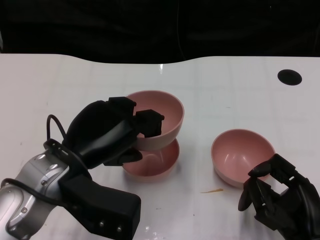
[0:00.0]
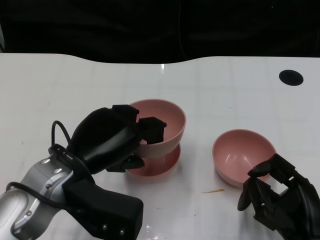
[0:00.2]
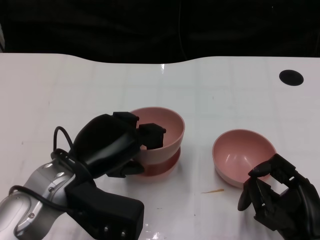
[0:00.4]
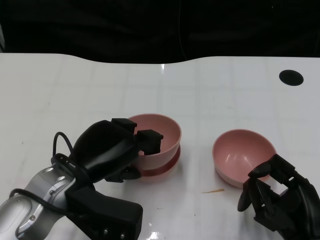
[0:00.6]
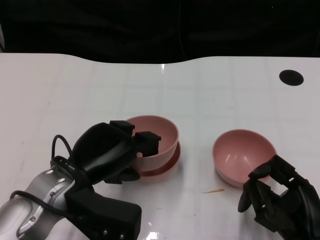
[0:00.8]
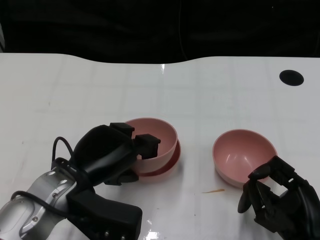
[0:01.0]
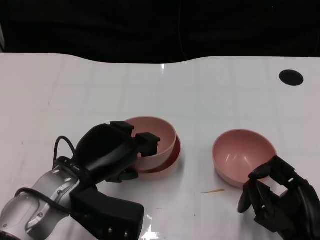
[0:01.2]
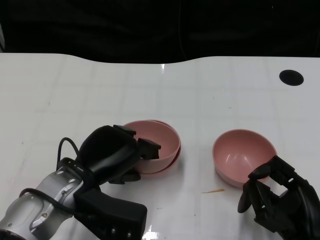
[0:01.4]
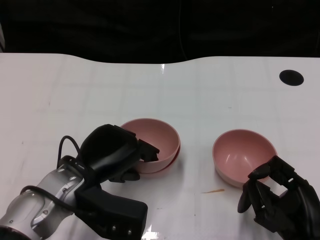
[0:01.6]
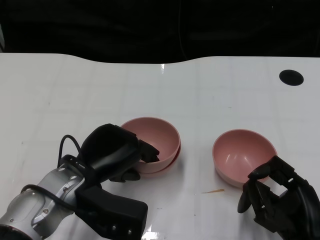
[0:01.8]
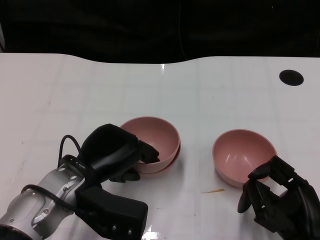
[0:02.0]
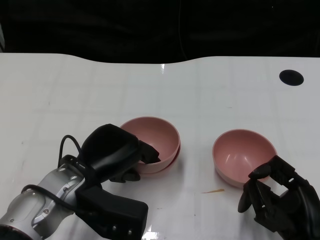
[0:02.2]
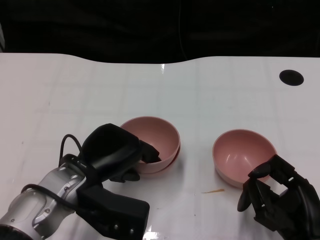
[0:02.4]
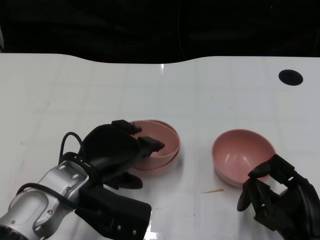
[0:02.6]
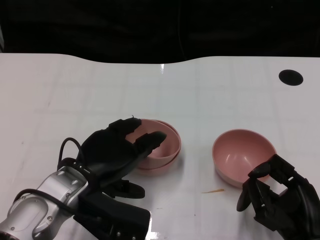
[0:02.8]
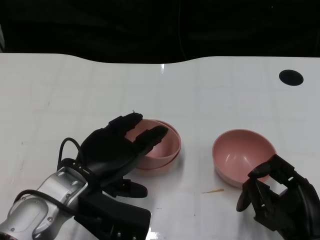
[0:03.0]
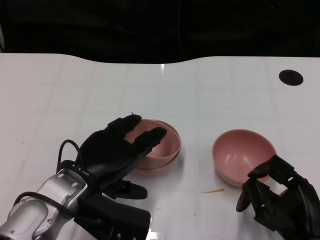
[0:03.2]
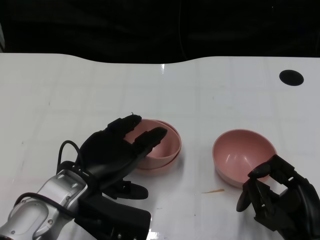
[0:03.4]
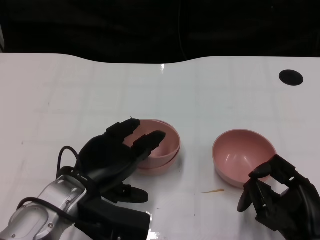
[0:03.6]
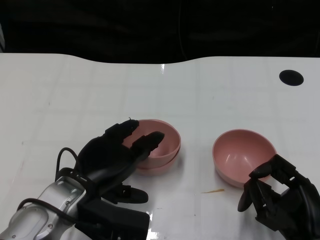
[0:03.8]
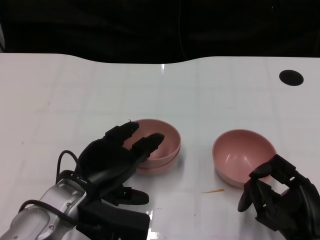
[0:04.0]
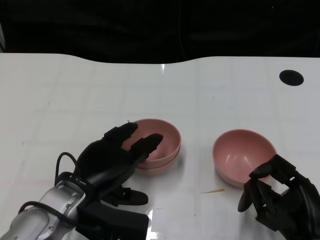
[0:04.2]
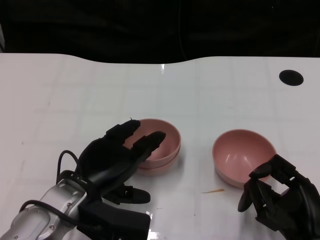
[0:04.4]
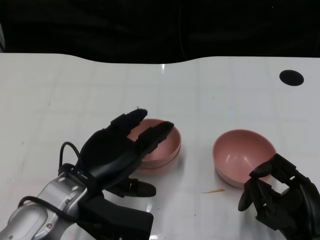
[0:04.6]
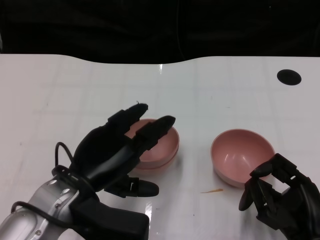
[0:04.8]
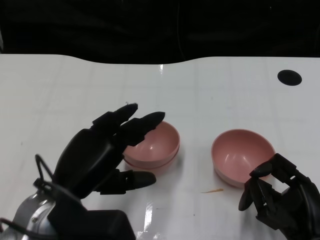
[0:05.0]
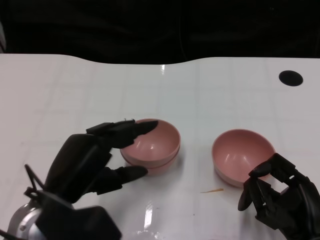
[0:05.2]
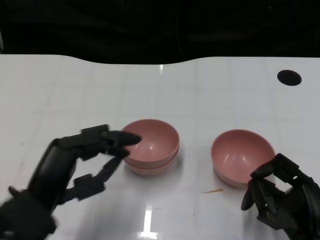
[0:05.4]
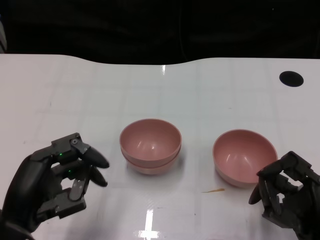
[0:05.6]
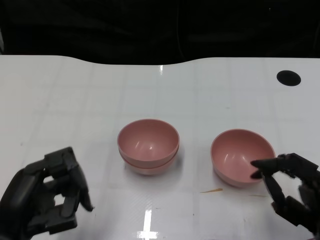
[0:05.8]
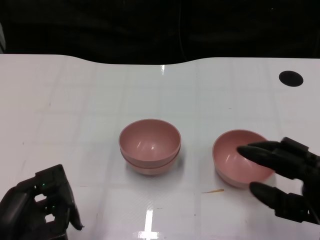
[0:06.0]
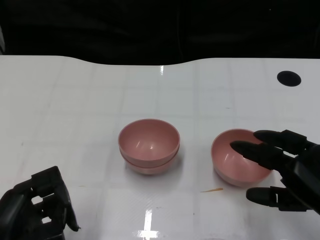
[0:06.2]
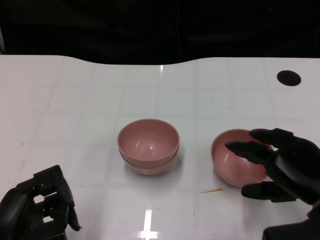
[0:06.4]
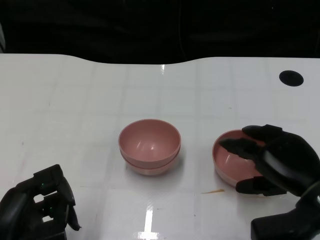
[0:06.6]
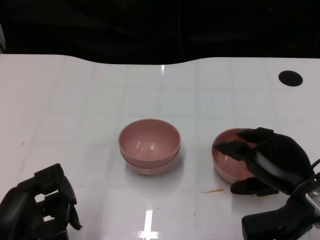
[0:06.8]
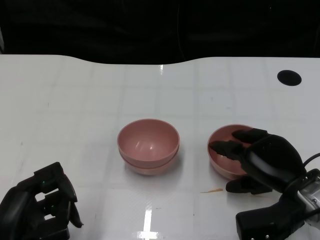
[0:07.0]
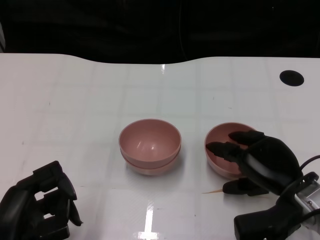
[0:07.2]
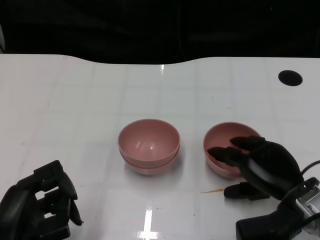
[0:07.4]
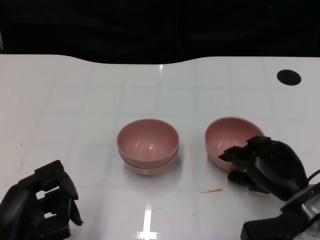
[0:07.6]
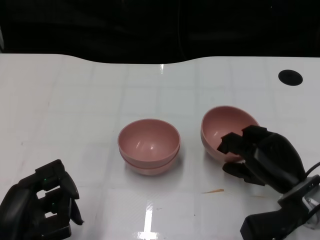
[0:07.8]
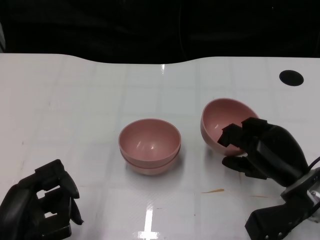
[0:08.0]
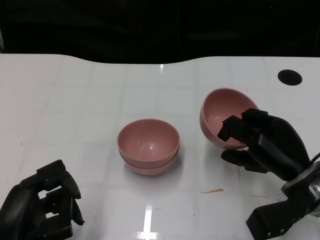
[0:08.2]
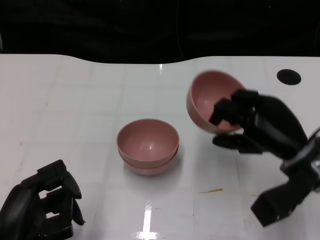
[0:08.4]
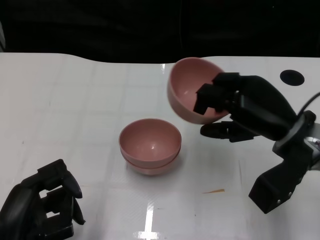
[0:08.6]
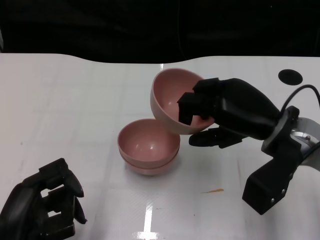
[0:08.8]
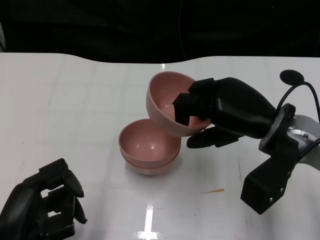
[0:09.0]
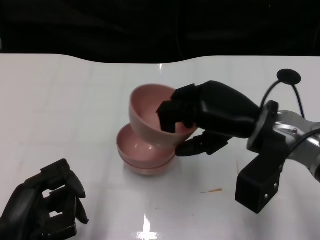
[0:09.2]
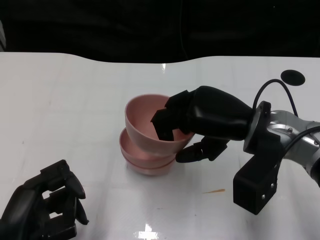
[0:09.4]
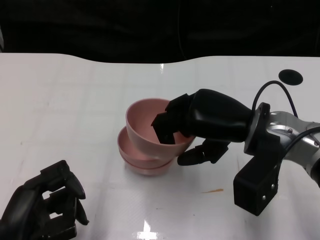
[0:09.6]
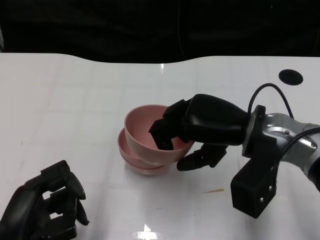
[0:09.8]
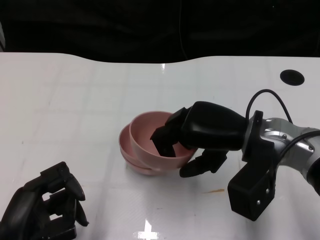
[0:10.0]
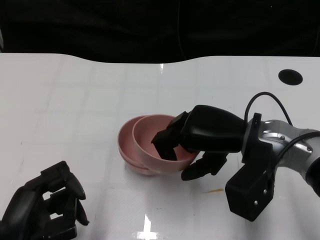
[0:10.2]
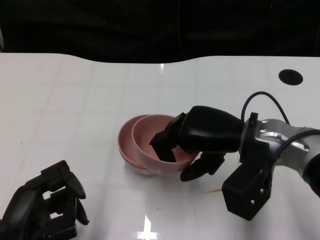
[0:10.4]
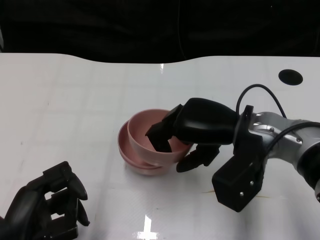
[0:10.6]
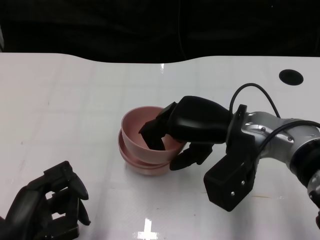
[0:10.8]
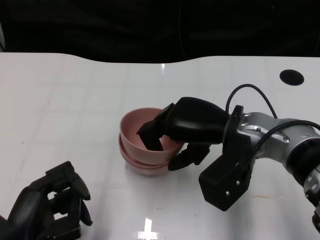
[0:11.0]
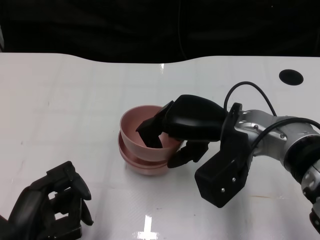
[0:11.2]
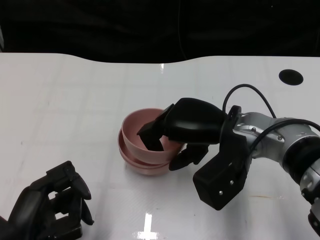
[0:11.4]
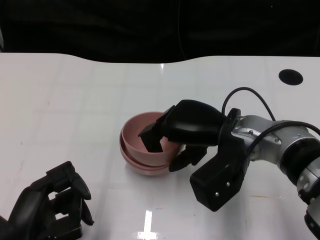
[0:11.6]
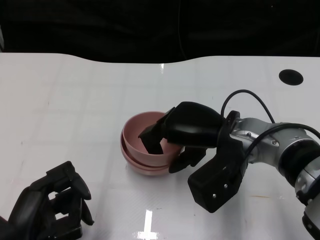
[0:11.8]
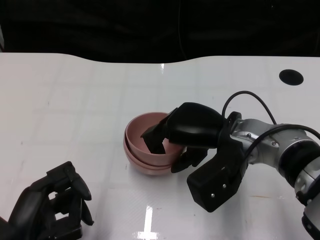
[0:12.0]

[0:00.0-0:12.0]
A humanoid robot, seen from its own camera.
Task of the whole recording: Pick up the bowl on one side of the table and place it on top of the middle bowl, then pick up the bowl on the other side of the table and place it on top of the middle bowls.
Step, 0:00.0 to 0:03.6: Place the bowl on the left onto the bowl in the middle with left gripper.
Step, 0:03.8 to 0:07.8: Grasp the bowl on the right with the right gripper.
0:00.0 to 0:01.6: The left hand is displaced downward by about 5 cm.
0:01.6 to 0:04.4: The hands make only small movements.
0:04.4 to 0:06.0: The right hand changes place by some 5 cm. Meanwhile the left hand is displaced backward and to the left by about 15 cm.
0:06.0 to 0:07.6: The right hand goes about 10 cm forward.
0:07.6 to 0:09.0: The right hand travels upward and forward by some 15 cm.

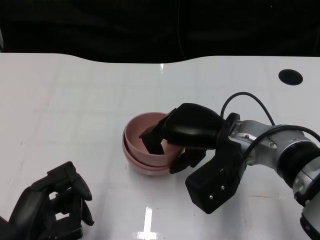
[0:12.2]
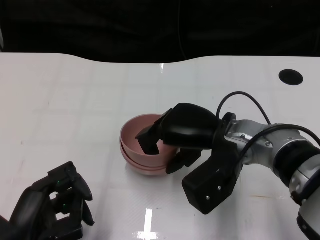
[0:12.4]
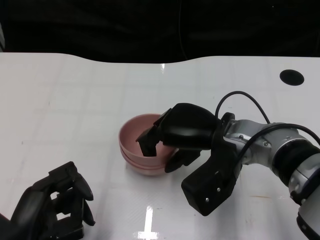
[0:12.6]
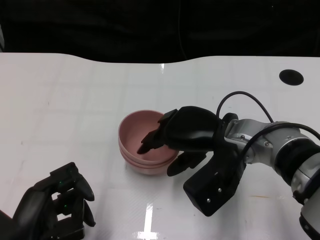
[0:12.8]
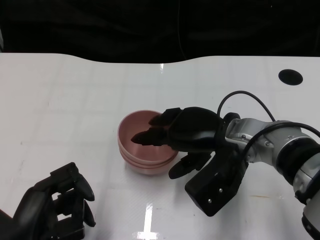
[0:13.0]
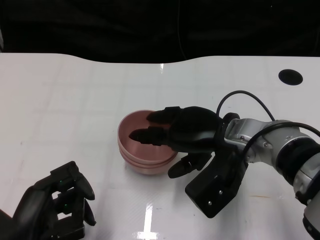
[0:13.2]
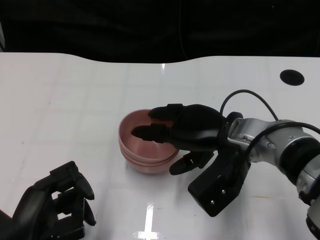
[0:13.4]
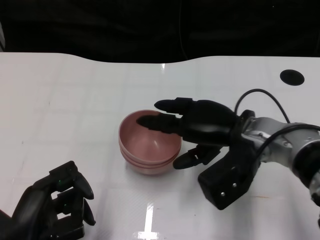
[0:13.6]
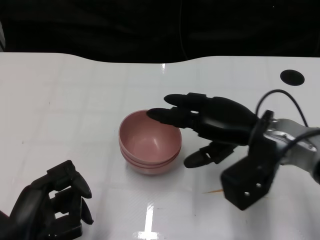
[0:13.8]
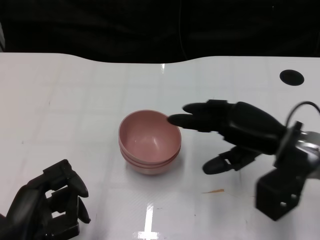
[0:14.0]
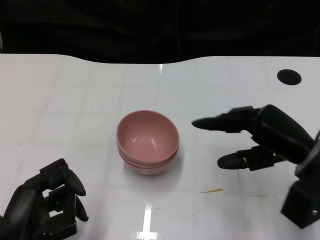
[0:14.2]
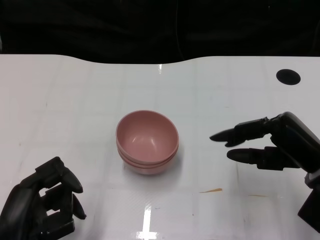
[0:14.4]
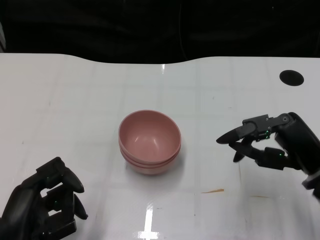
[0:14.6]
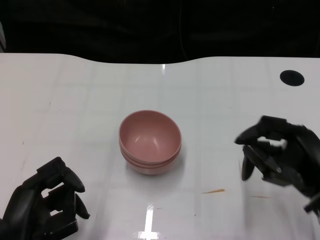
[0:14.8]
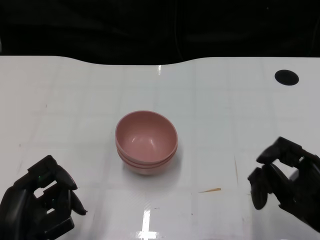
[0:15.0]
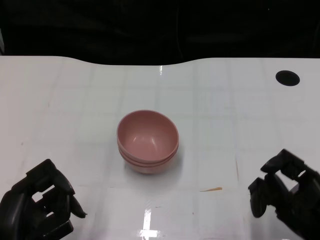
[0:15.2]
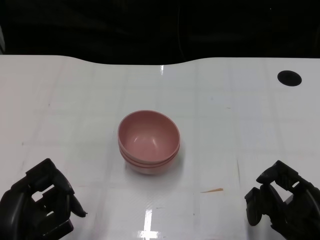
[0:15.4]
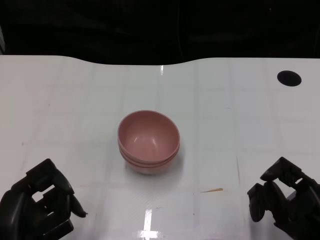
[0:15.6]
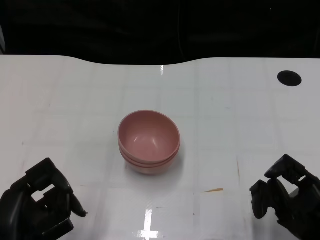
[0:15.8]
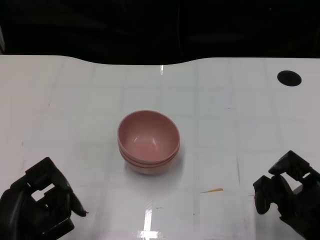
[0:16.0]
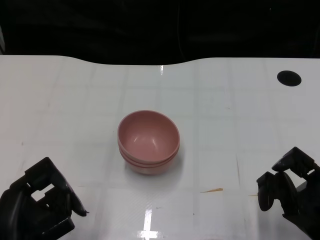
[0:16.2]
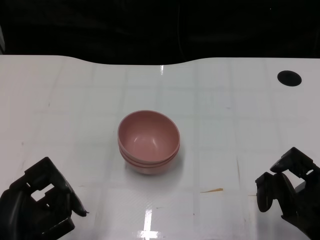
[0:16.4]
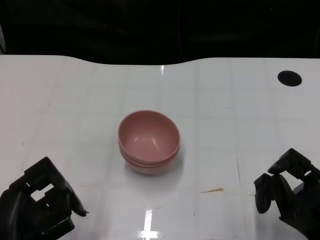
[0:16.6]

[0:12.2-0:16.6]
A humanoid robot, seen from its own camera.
Task of the whole recording: Pick up the bowl on one side of the table and place it on top of the middle bowl, then pick up the bowl on the other side of the table and place it on top of the middle bowls.
0:12.2 to 0:13.6: There are only small adjustments of the hands.
0:13.6 to 0:15.2: The right hand travels backward and to the right by about 20 cm.
0:15.2 to 0:16.6: The hands stay close to where they were, moving slightly.

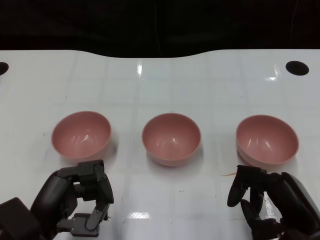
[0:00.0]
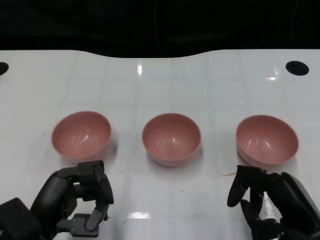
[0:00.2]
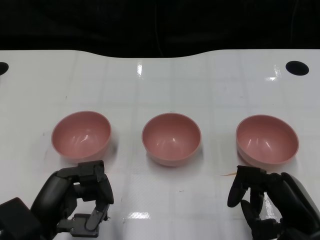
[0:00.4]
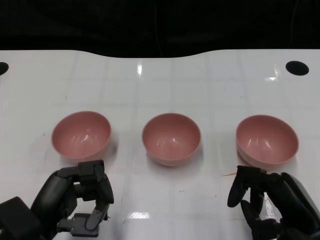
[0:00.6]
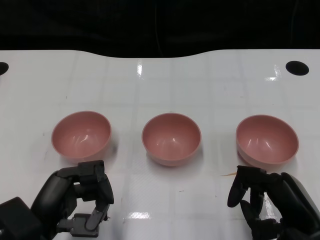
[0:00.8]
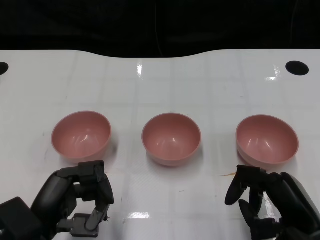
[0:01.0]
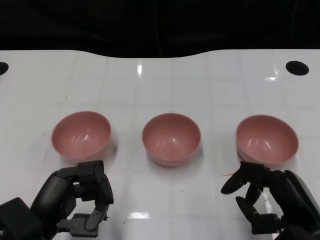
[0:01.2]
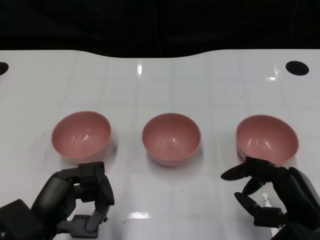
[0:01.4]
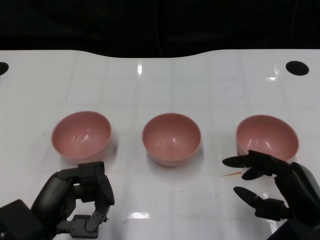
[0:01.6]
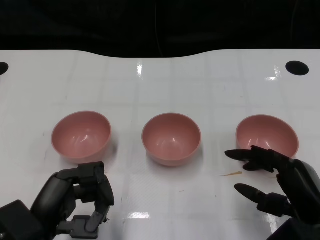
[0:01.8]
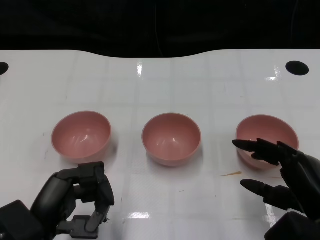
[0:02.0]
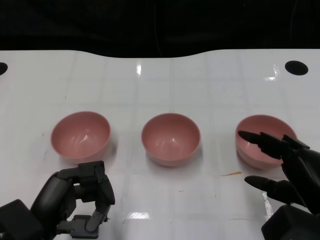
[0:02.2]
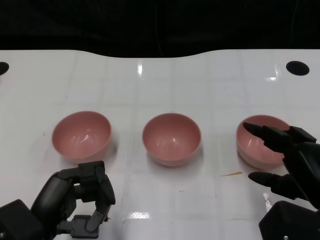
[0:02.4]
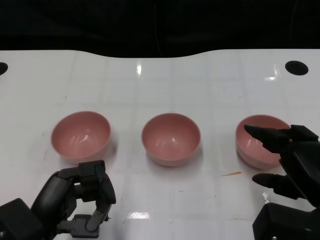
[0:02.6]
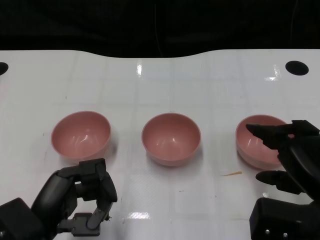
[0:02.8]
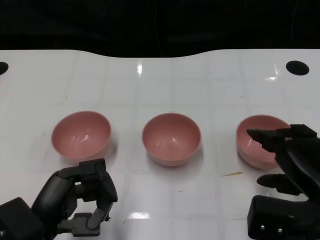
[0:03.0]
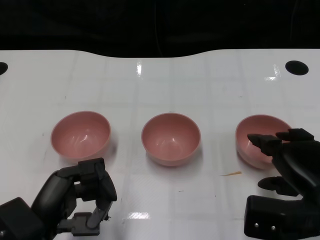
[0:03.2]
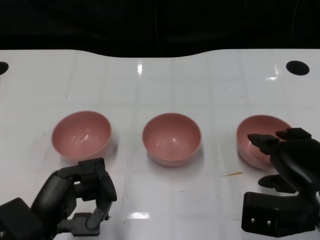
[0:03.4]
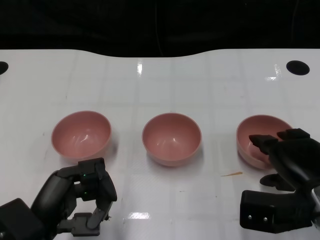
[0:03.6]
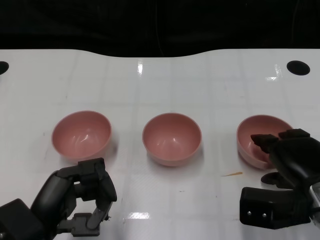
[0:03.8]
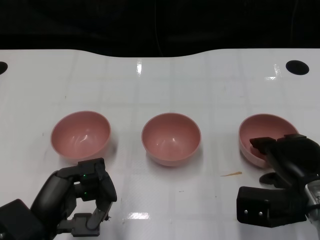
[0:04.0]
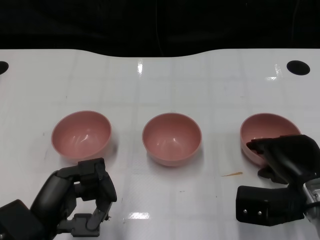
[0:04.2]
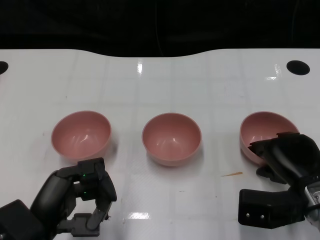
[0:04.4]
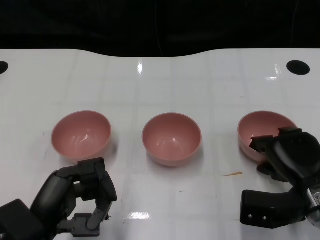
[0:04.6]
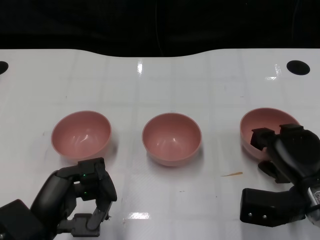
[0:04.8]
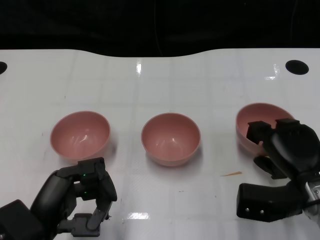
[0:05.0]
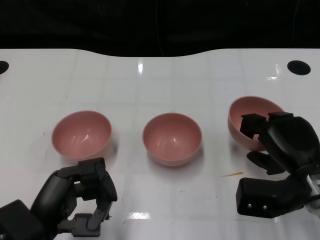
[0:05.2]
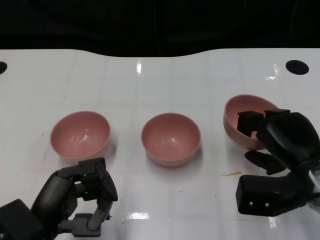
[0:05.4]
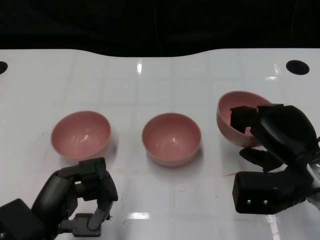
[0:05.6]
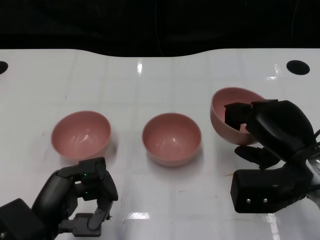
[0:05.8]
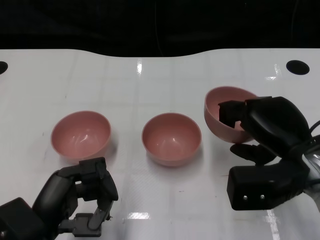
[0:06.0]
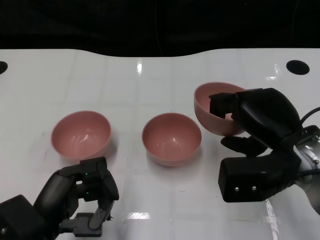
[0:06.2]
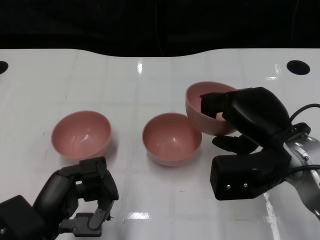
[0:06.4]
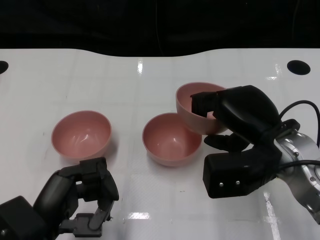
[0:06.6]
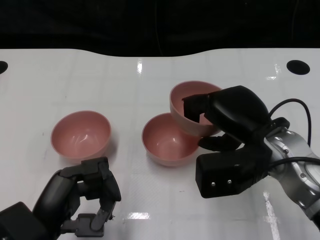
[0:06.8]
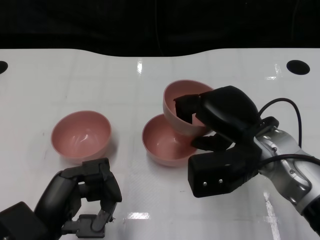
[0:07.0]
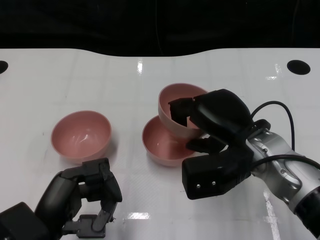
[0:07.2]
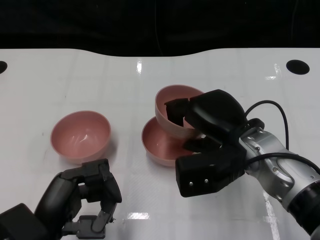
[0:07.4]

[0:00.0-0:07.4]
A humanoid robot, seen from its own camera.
Task of the whole recording: Pick up the bowl on one side of the table and place it on top of the middle bowl, then pick up the bowl on the other side of the table and place it on top of the middle bowls.
Step, 0:01.0 to 0:04.8: Grasp the bowl on the right with the right gripper.
0:01.4 to 0:03.0: The right hand ends up about 5 cm from where it was.
0:03.0 to 0:04.4: The right hand shifts some 5 cm downward.
0:04.4 to 0:06.0: The right hand travels upward by approximately 10 cm.
0:06.0 to 0:07.4: The right hand moves to the left, roughly 10 cm.
